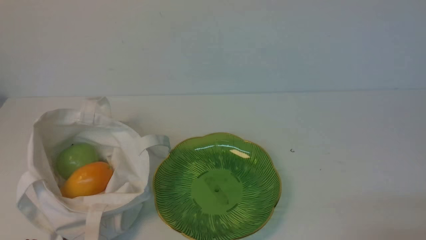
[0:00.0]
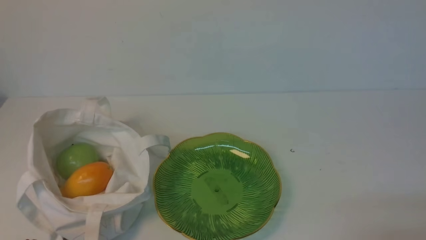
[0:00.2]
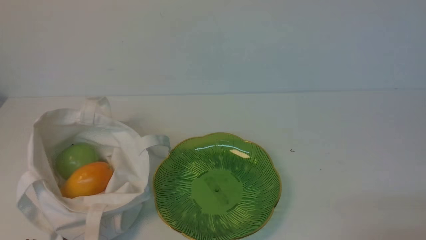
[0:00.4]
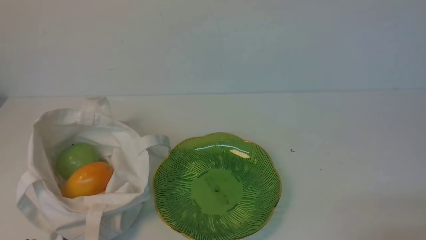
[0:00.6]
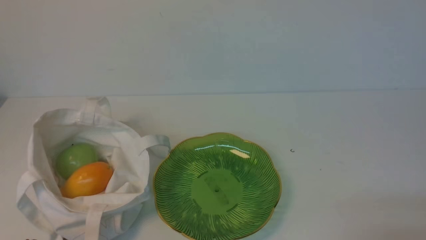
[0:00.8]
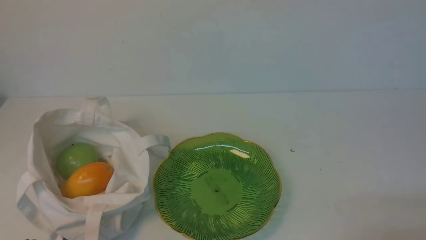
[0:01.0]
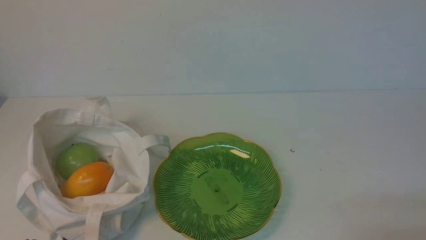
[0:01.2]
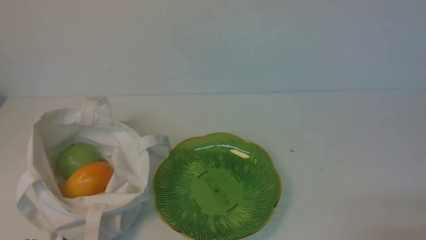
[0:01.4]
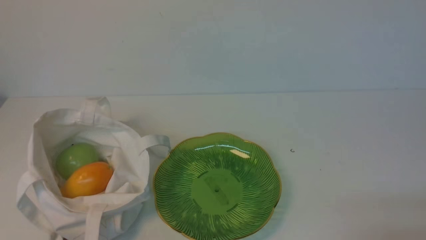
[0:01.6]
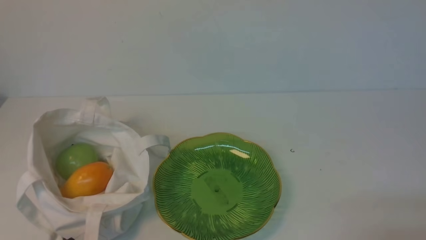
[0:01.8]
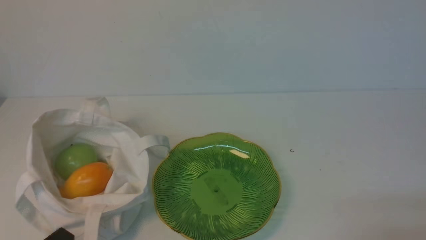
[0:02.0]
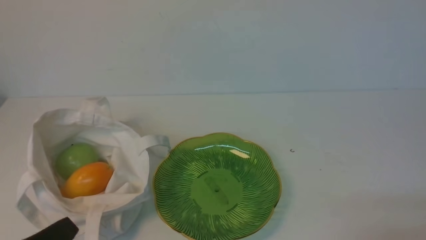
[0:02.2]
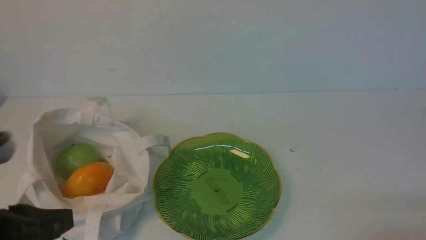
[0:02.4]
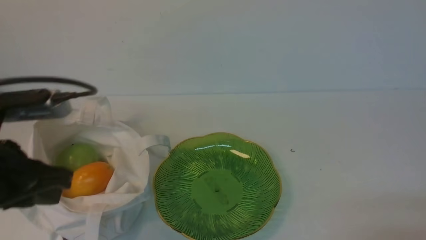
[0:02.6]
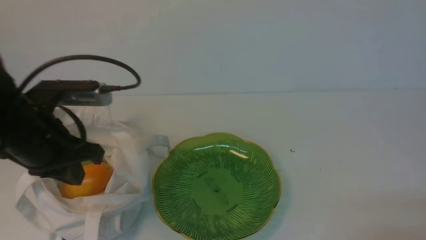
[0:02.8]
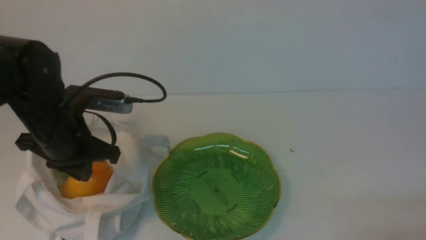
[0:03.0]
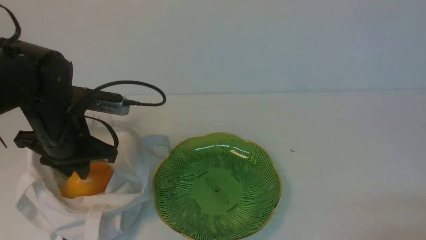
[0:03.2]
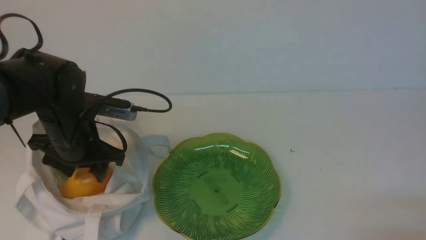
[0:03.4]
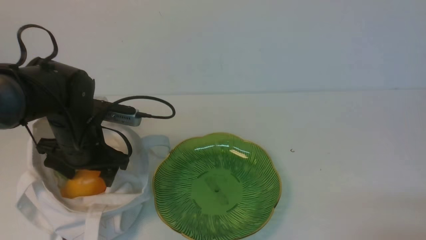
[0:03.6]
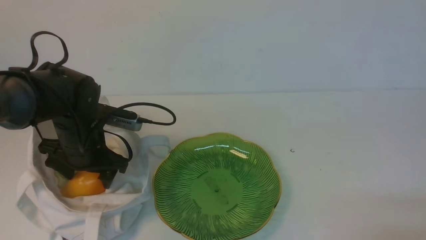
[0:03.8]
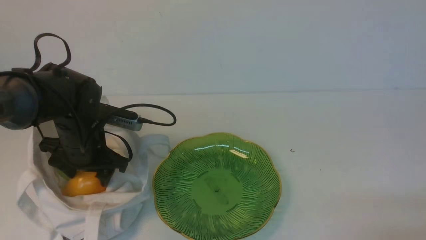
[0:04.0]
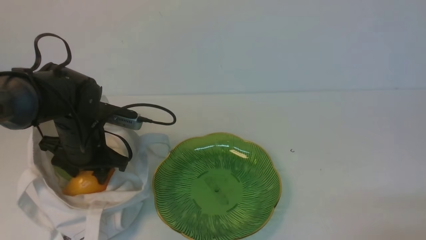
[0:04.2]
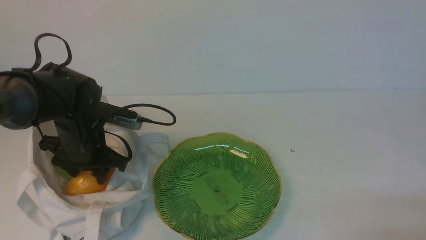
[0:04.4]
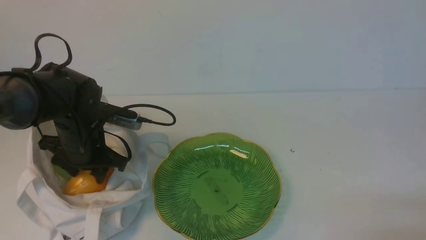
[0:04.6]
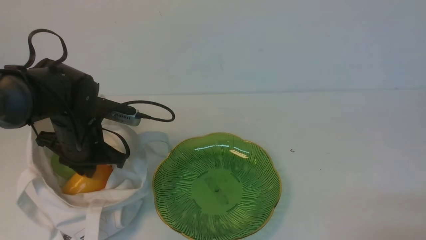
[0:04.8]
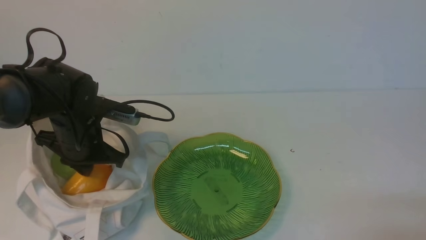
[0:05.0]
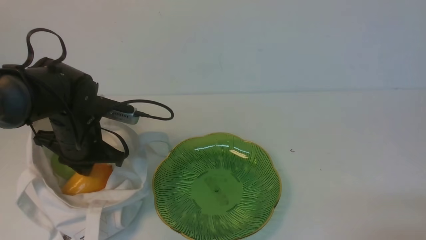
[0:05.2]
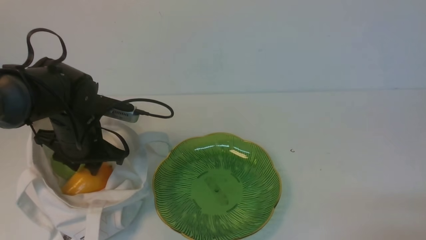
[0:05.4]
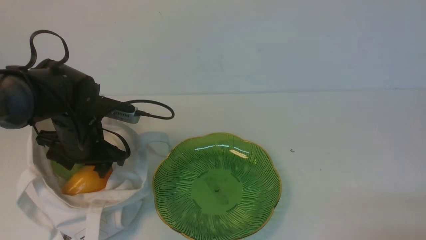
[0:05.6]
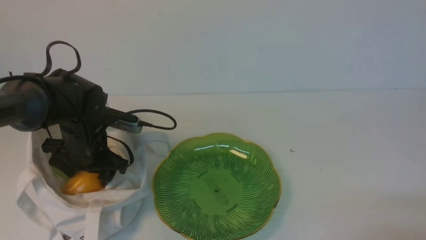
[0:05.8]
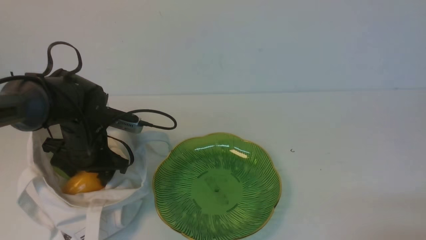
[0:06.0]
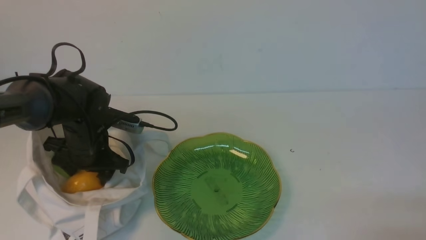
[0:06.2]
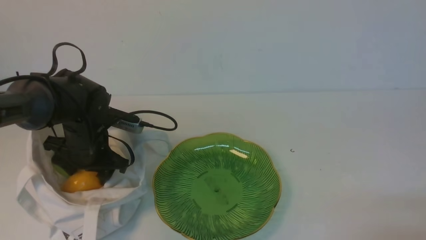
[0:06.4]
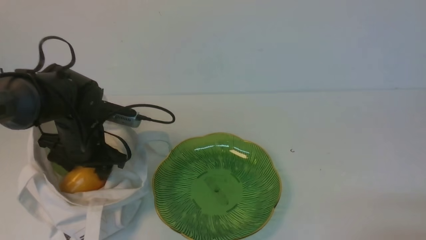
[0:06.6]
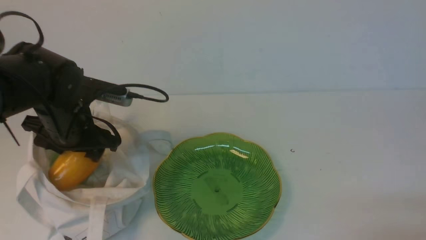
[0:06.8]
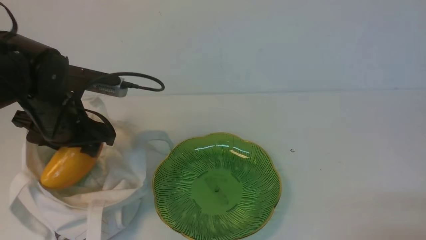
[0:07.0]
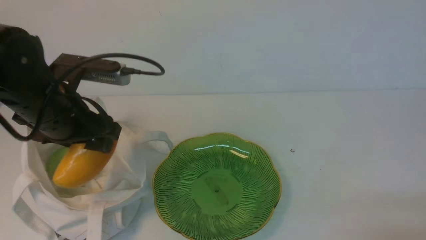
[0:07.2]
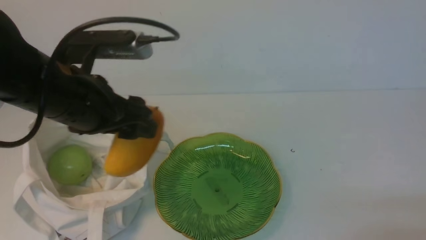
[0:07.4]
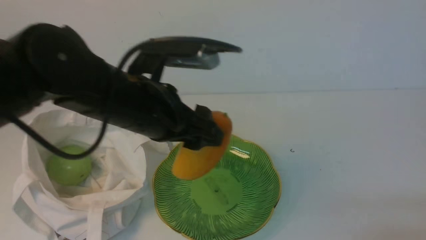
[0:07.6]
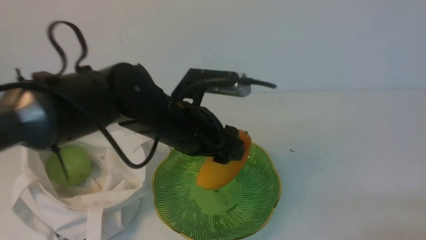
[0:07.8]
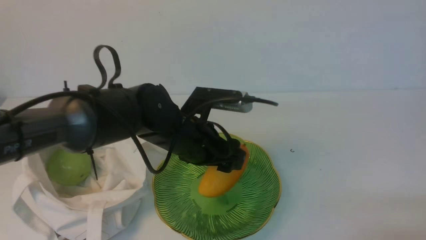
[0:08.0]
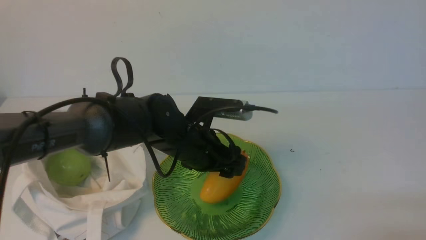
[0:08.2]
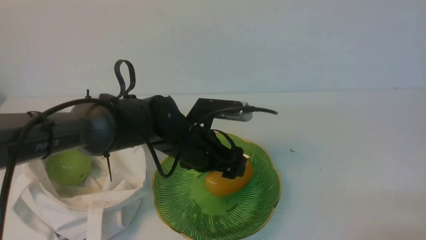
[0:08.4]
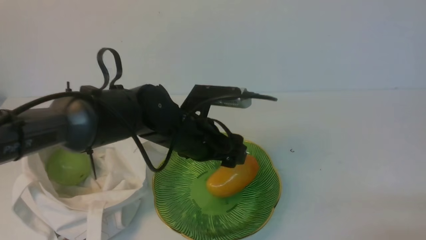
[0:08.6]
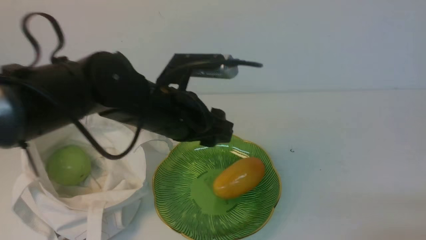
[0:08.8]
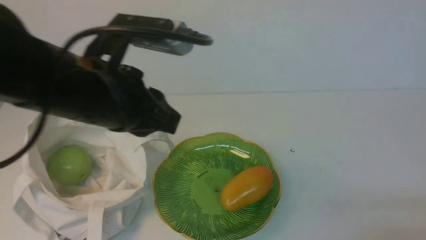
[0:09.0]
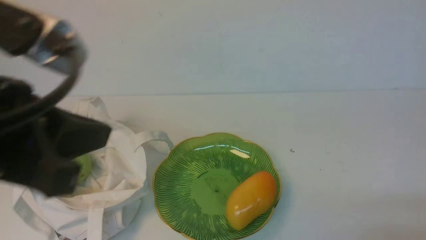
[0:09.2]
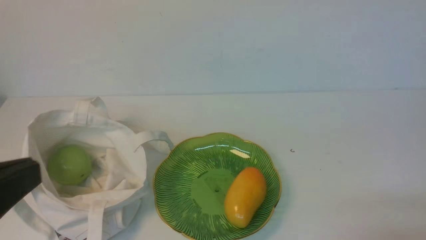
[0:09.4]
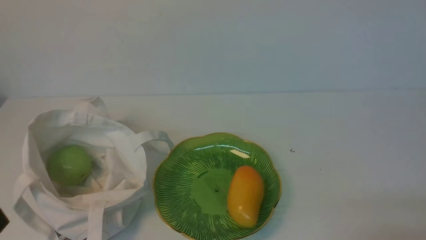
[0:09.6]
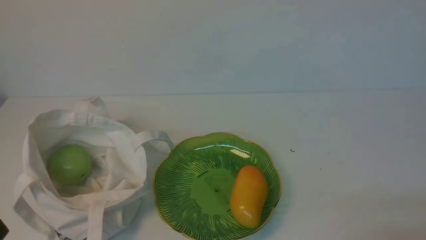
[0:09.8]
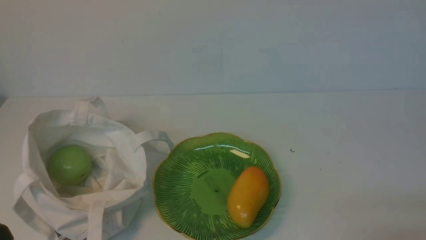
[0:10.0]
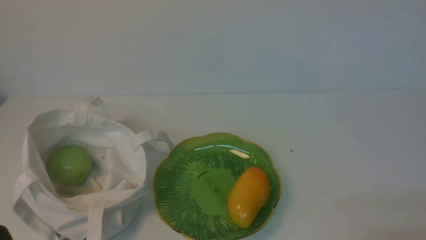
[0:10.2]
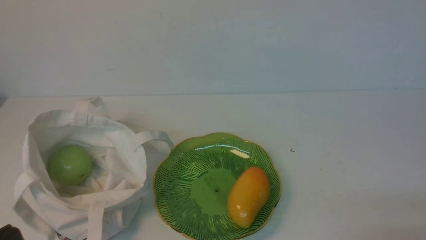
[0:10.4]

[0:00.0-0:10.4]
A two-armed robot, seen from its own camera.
Step, 0:00.0 to 0:06.8: use the left arm to grab a mango from the bag.
Step, 0:07.0 to 0:08.6: use the left arm to put the mango into the empty plate on the right.
0:01.4 to 0:03.0: The left gripper heads forward and upward, covering roughly 25 cm.
0:03.0 to 0:04.4: The left gripper shifts some 10 cm downward and forward, and opens.
0:04.4 to 0:06.0: The left gripper closes and opens again.
0:06.0 to 0:07.4: The left gripper is displaced upward and backward by approximately 15 cm.
0:07.4 to 0:09.0: The left gripper moves to the right, some 5 cm, goes downward and returns, roughly 10 cm each way, and closes.
0:09.0 to 0:10.4: The left gripper goes roughly 25 cm backward and to the left, and closes.

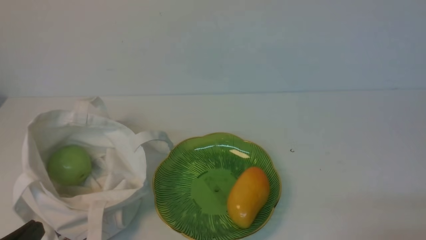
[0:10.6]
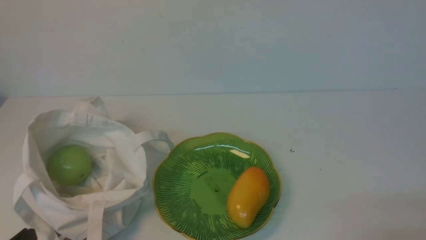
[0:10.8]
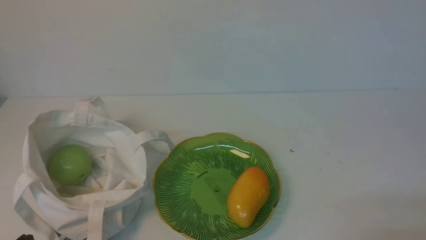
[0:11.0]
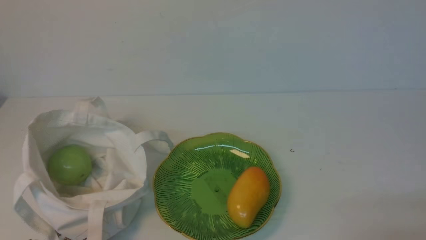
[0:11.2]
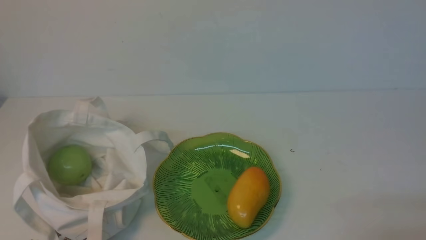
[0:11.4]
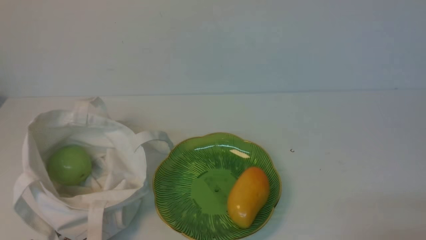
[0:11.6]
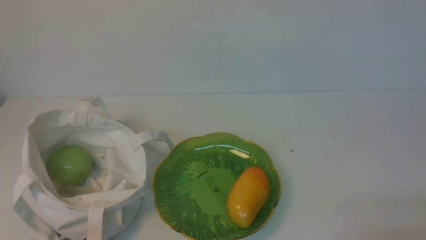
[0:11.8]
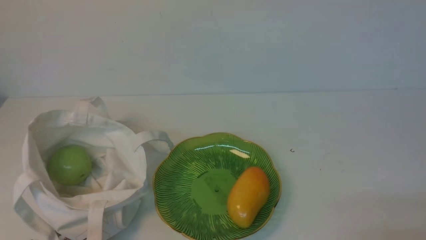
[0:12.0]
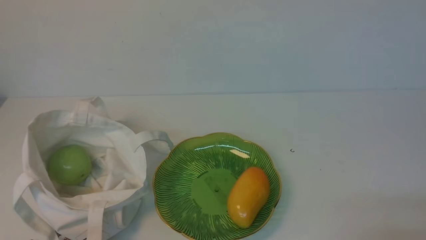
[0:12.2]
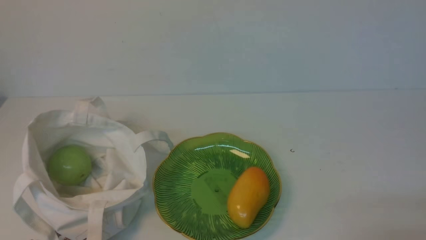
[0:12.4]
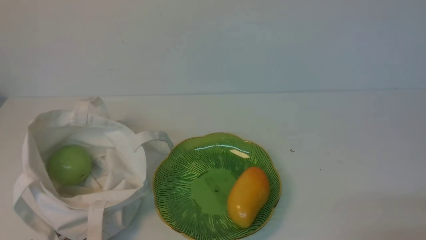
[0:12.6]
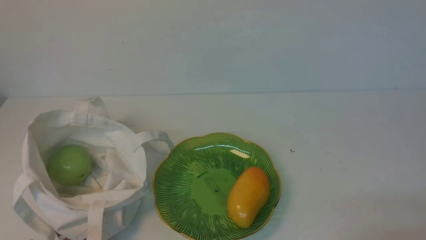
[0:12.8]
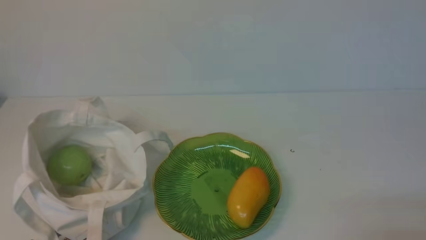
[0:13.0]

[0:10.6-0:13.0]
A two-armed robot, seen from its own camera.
0:11.8 to 0:13.0: Neither gripper changes place.
